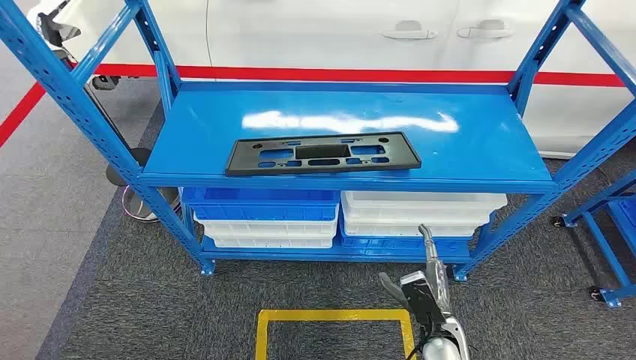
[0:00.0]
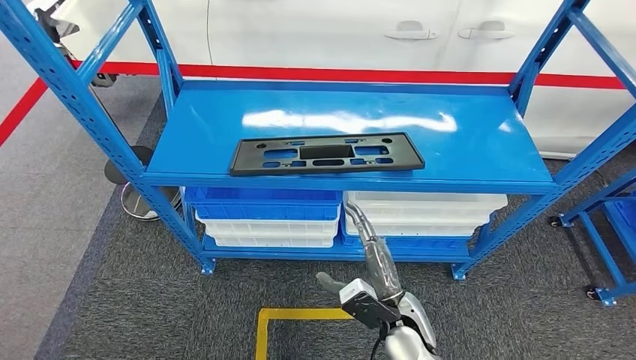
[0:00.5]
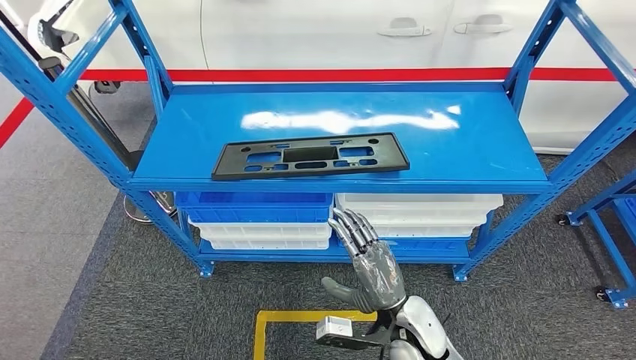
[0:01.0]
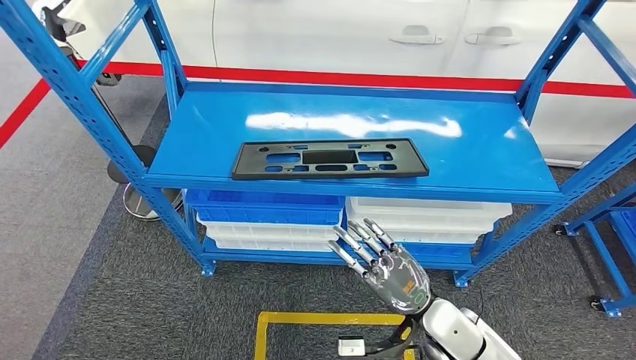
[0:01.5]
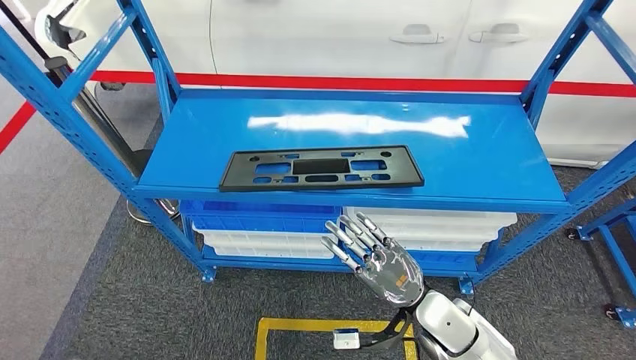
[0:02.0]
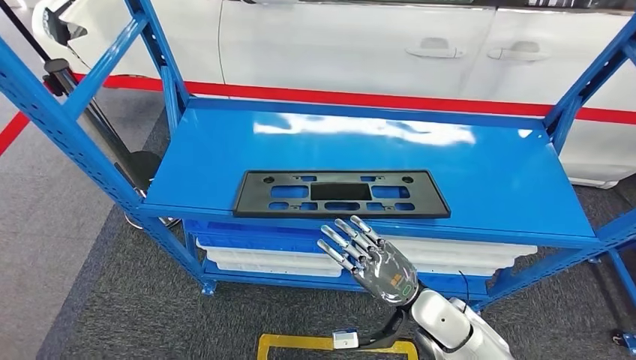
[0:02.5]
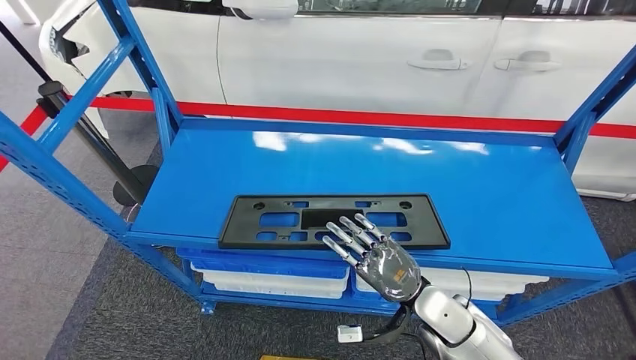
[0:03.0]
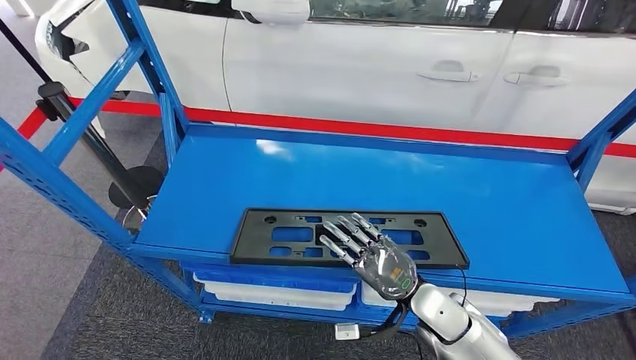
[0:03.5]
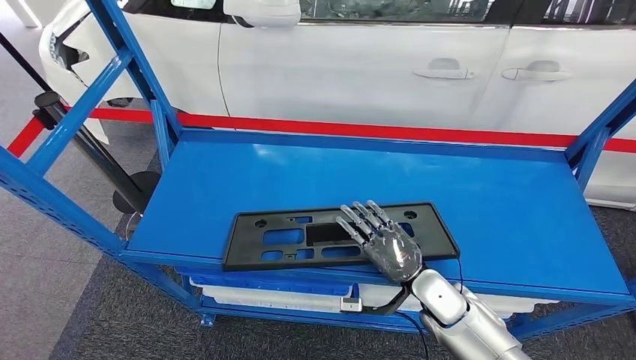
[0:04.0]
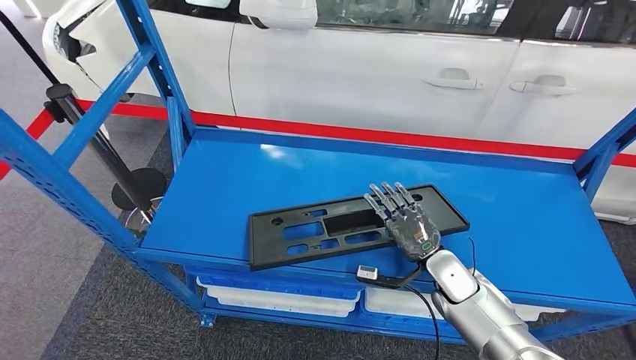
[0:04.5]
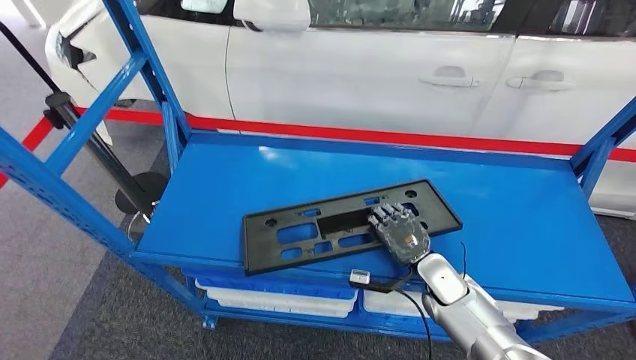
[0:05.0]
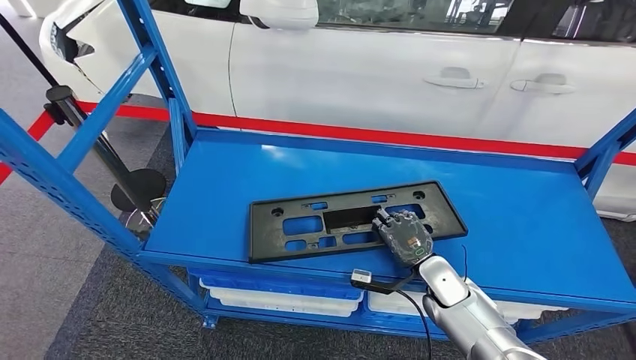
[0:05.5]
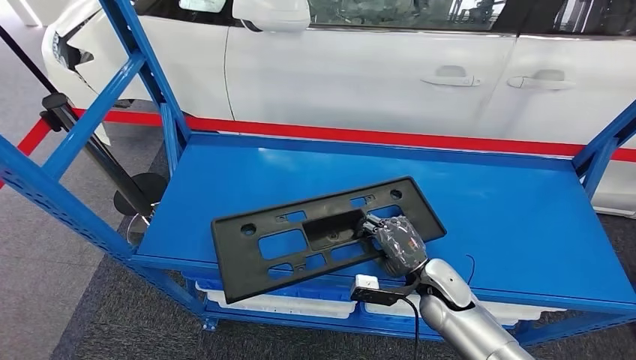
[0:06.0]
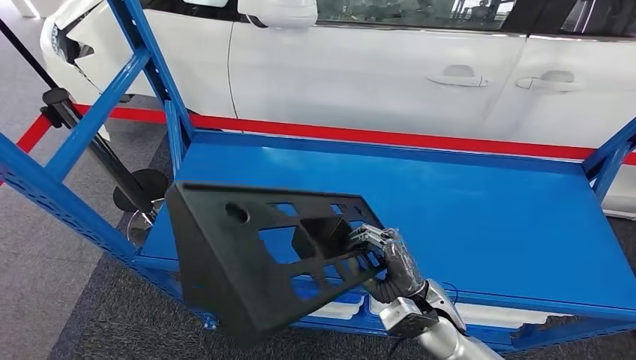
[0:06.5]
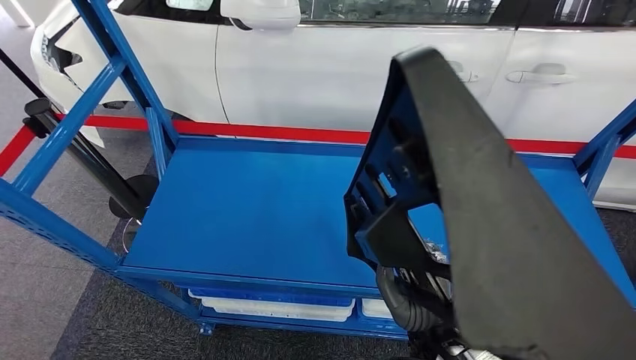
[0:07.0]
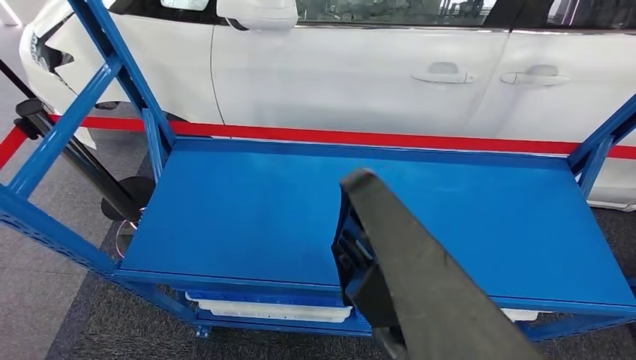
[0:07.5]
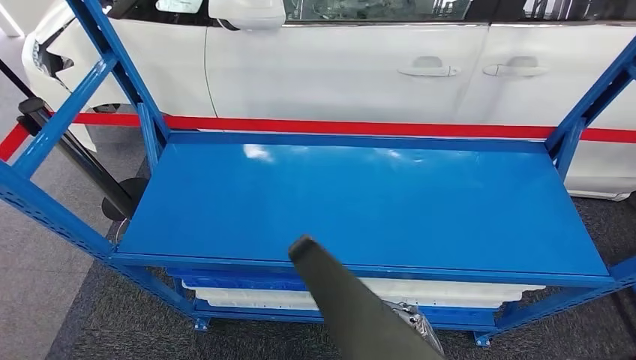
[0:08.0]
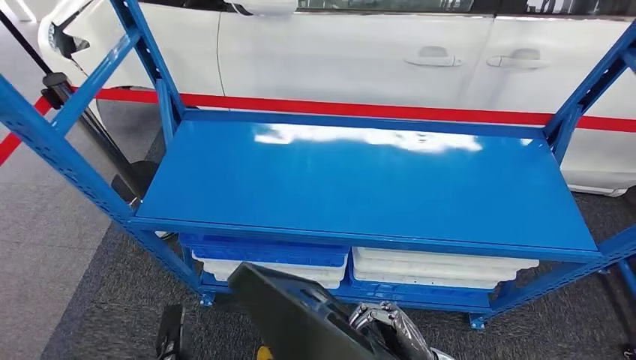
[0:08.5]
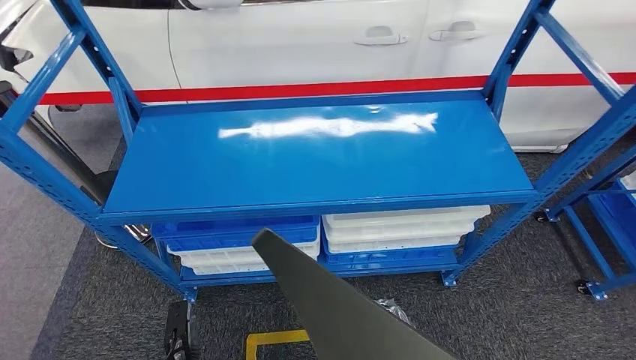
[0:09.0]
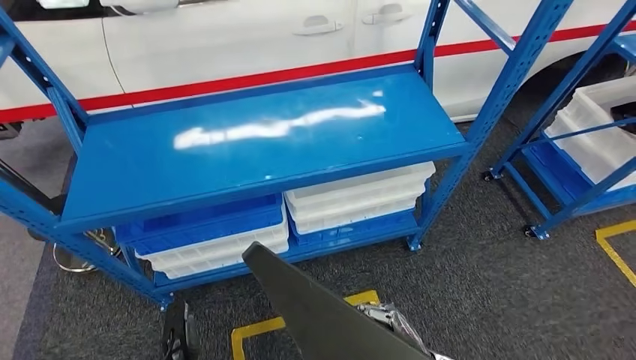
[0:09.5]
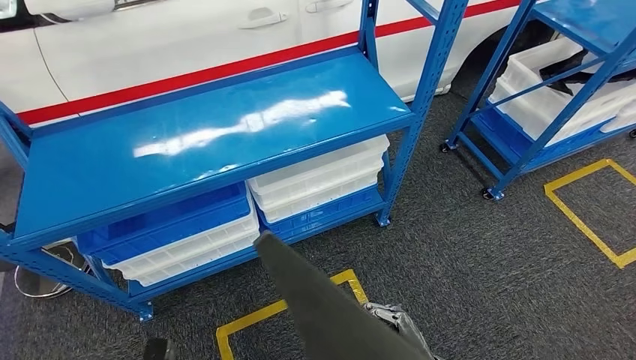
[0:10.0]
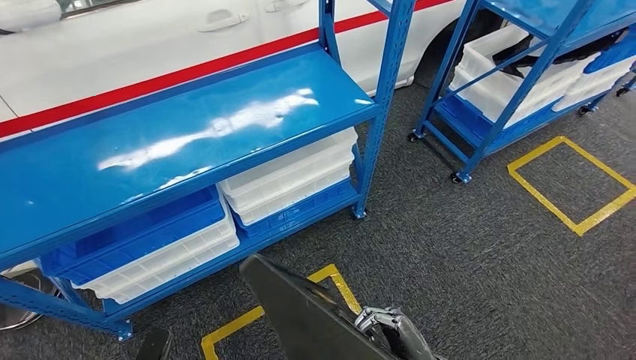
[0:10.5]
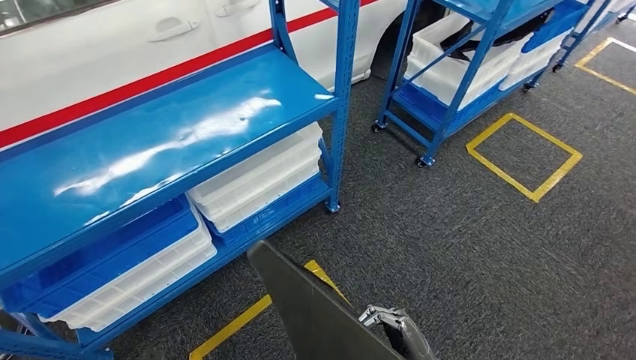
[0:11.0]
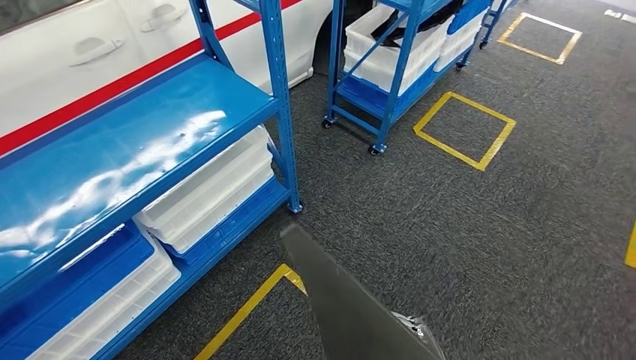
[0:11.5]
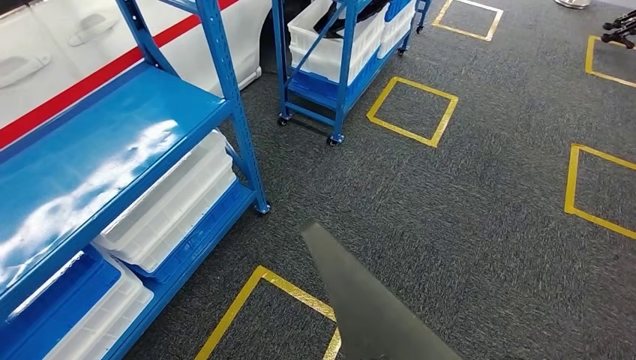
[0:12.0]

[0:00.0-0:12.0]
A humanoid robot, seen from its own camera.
Step, 0:00.0 to 0:06.5: Pick up the large material from the shelf.

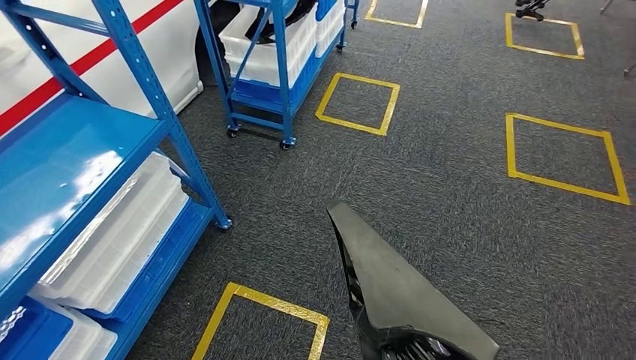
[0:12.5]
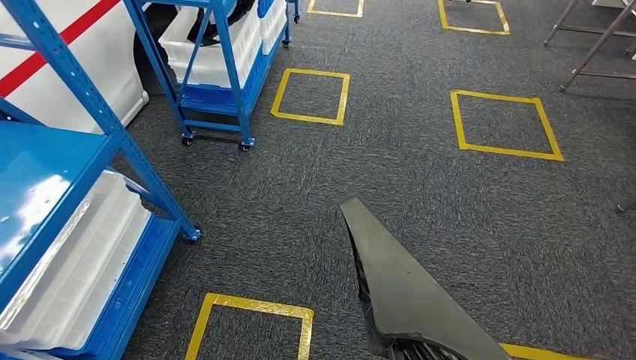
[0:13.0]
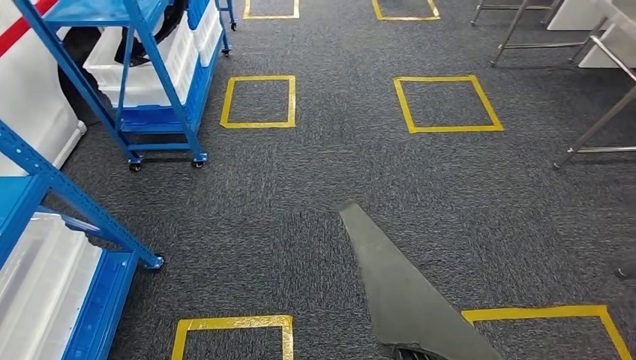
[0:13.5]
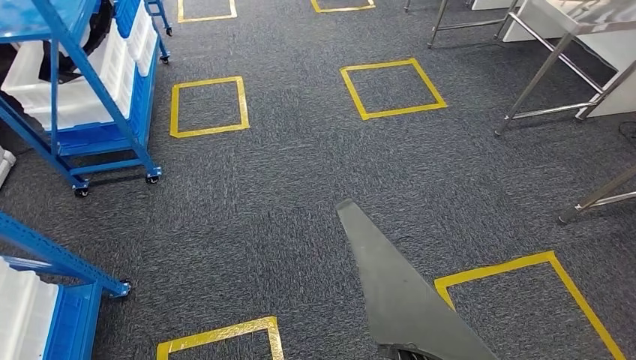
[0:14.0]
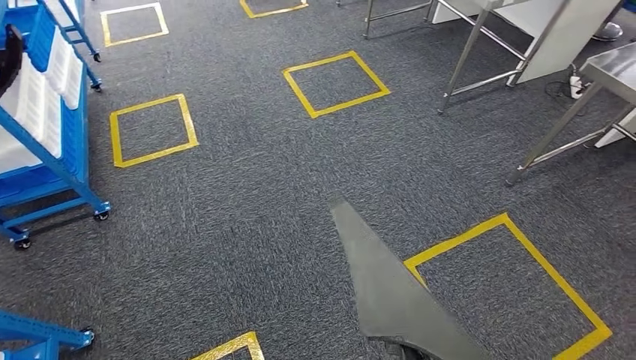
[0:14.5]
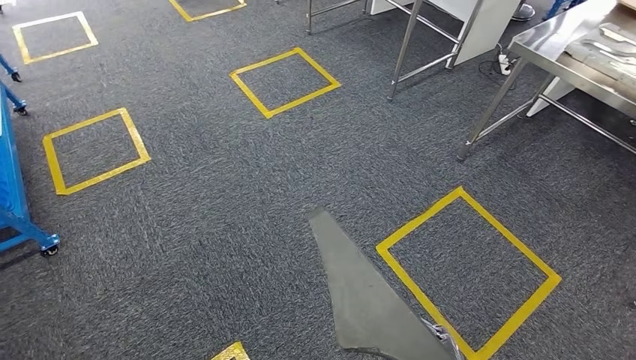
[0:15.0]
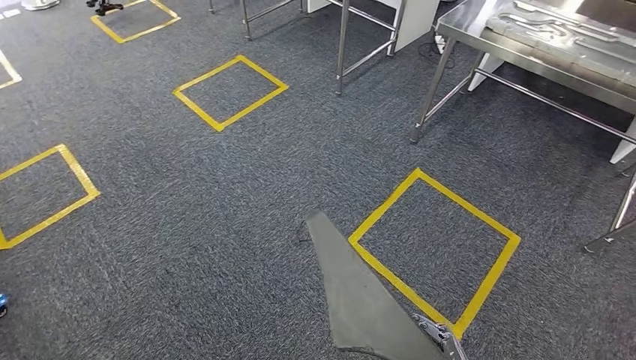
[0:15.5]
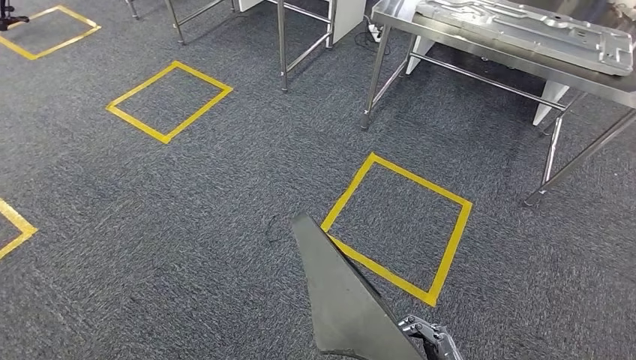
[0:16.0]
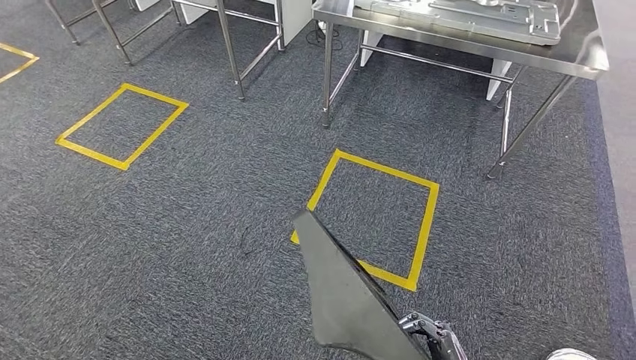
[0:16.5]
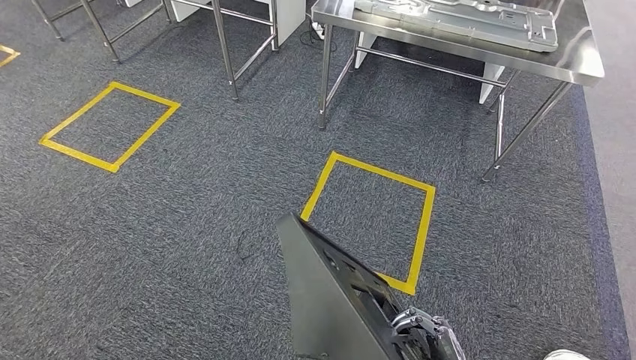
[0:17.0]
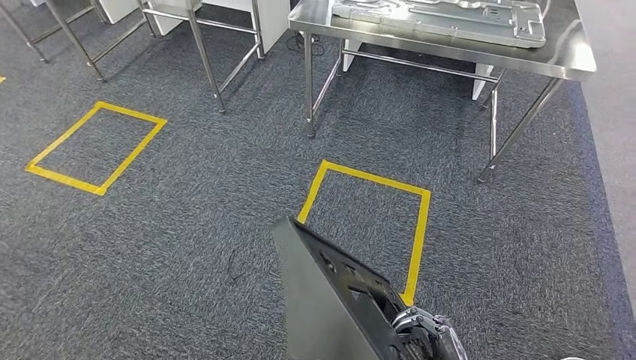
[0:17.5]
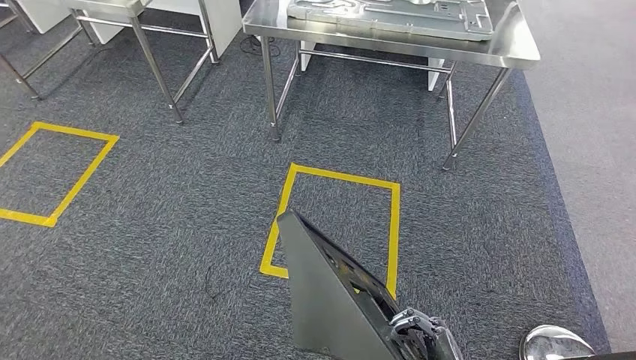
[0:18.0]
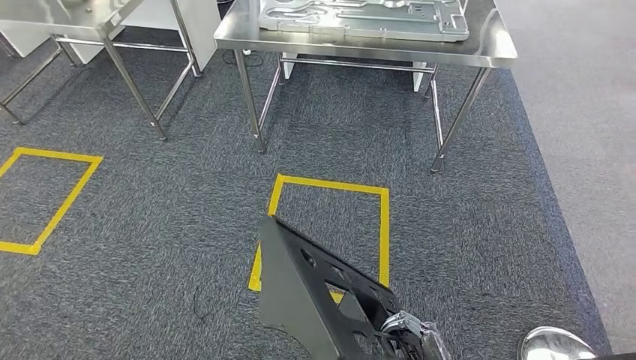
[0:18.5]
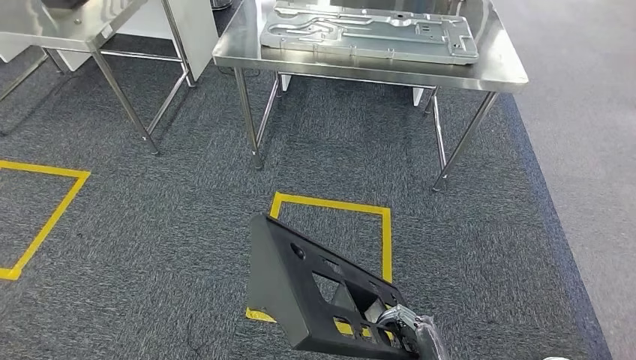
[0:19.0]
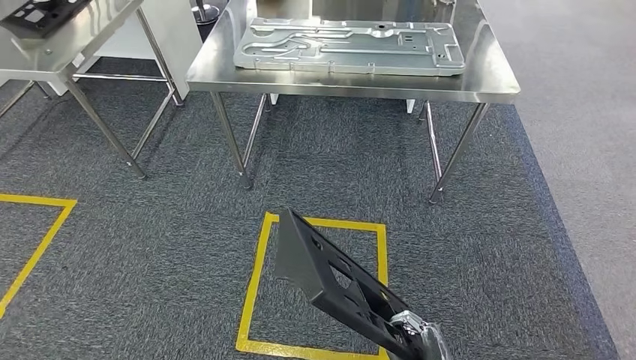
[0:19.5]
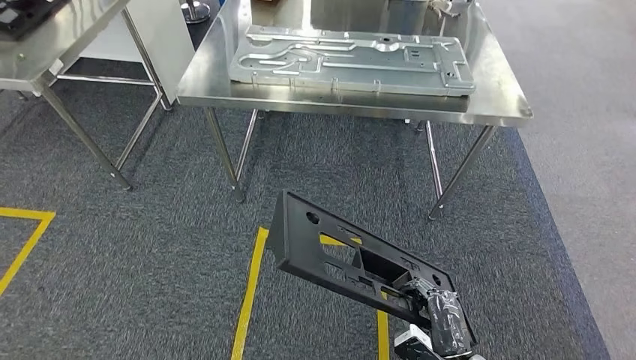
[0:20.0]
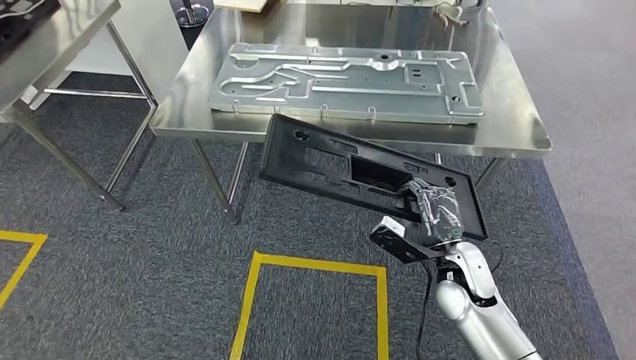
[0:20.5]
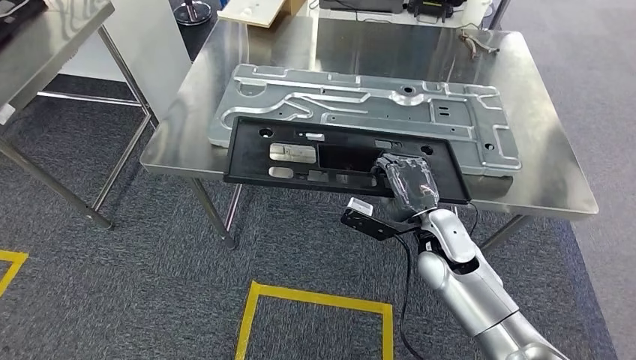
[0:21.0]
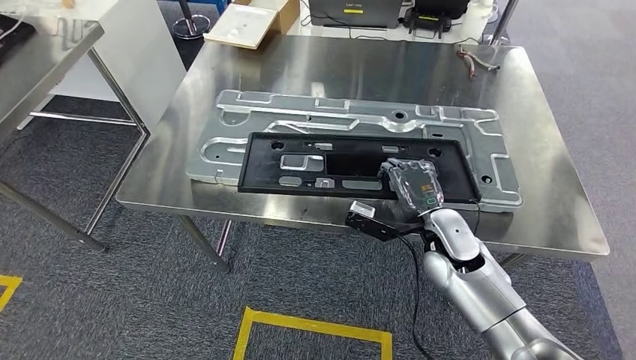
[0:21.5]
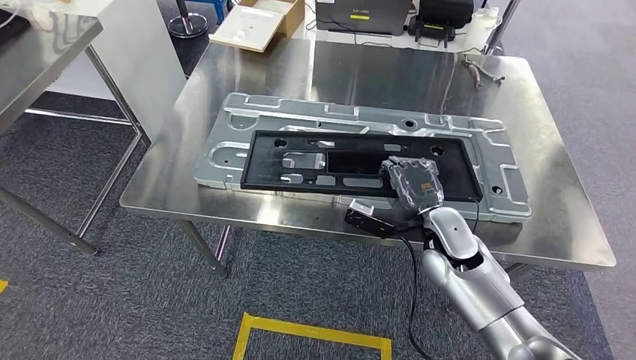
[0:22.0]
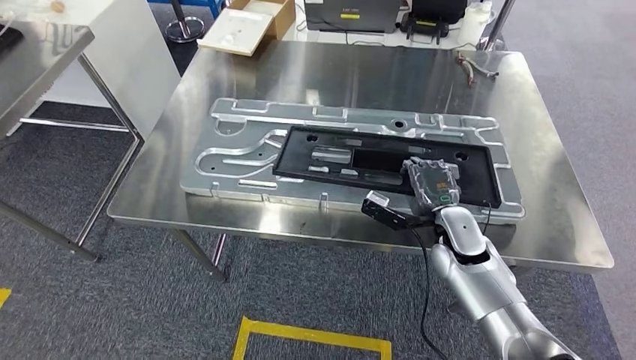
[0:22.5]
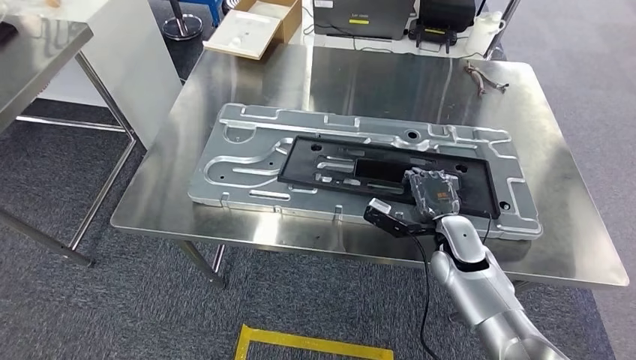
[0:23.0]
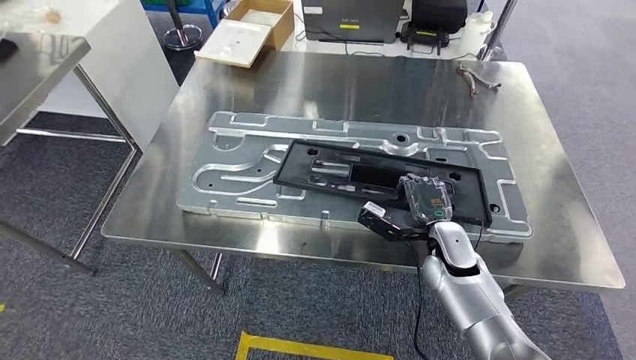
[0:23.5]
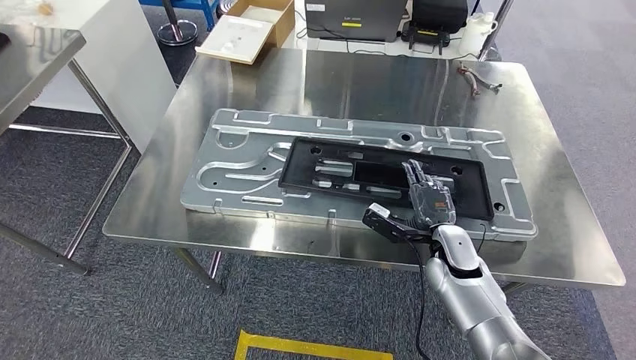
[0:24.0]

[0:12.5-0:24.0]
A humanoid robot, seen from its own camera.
Step, 0:12.5 to 0:19.0: Move the large material to the workbench.
